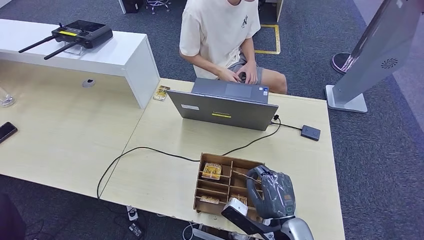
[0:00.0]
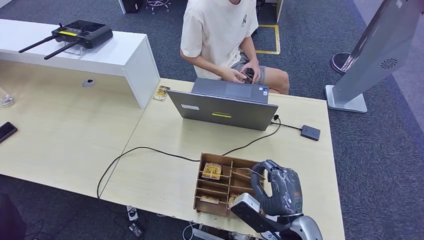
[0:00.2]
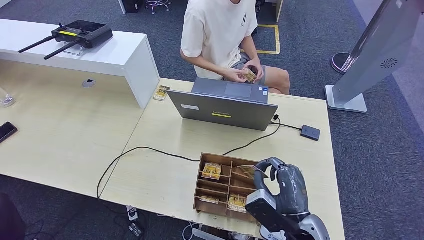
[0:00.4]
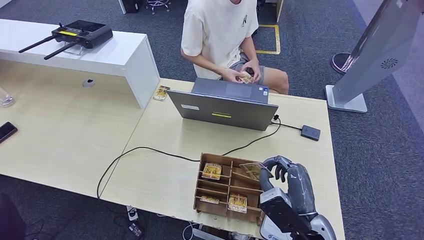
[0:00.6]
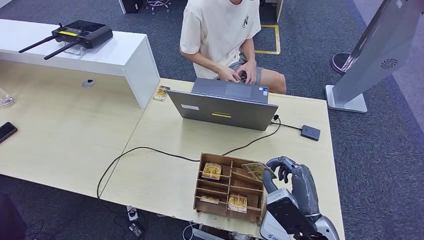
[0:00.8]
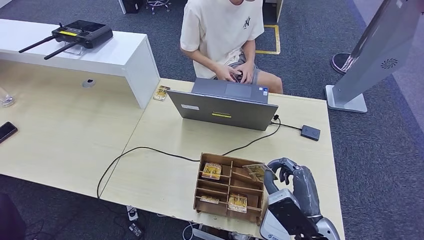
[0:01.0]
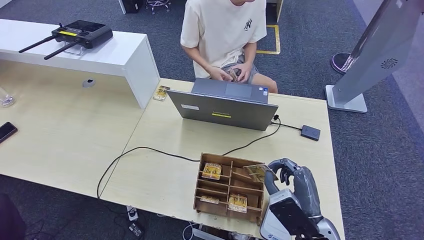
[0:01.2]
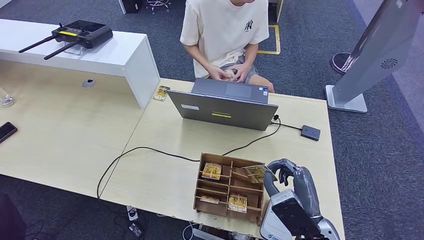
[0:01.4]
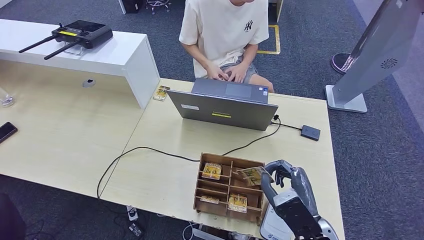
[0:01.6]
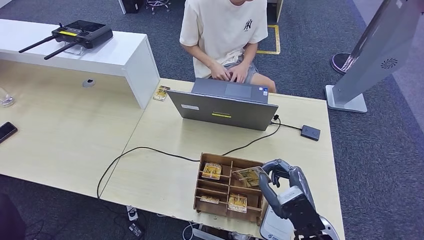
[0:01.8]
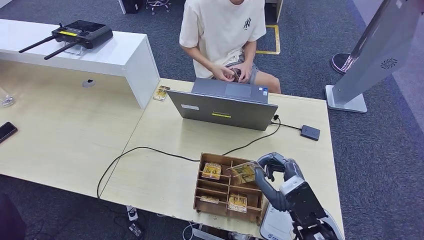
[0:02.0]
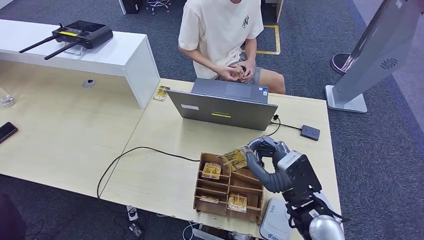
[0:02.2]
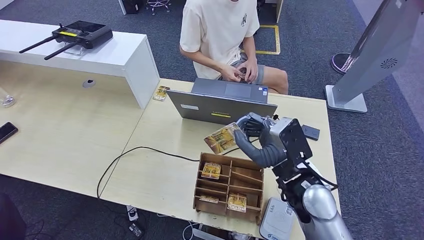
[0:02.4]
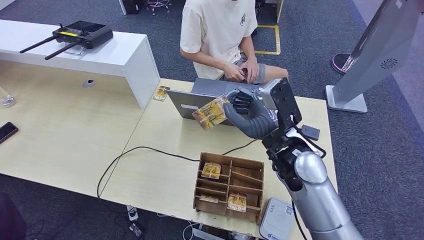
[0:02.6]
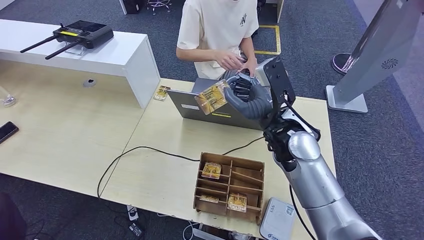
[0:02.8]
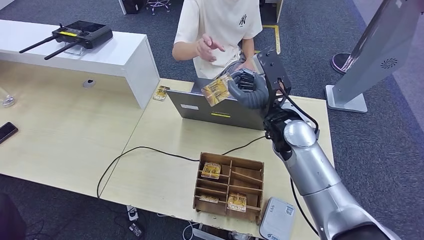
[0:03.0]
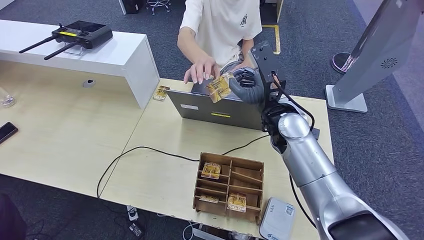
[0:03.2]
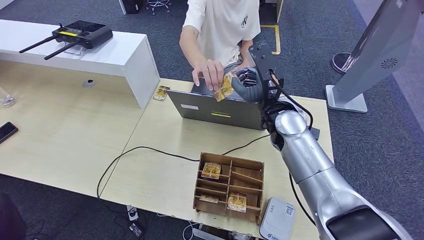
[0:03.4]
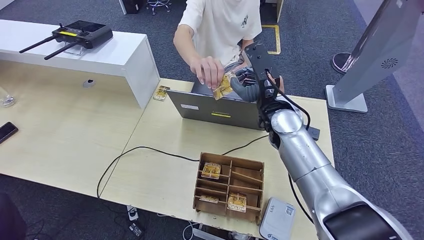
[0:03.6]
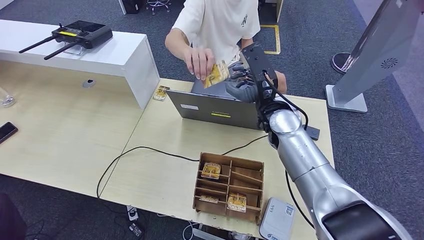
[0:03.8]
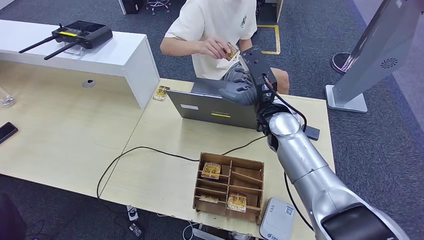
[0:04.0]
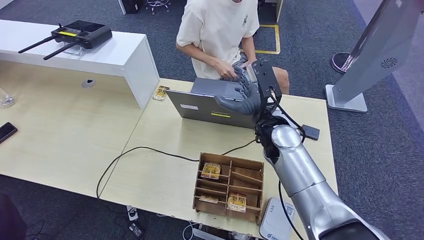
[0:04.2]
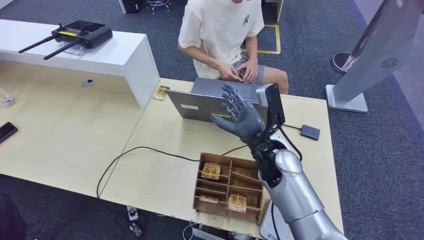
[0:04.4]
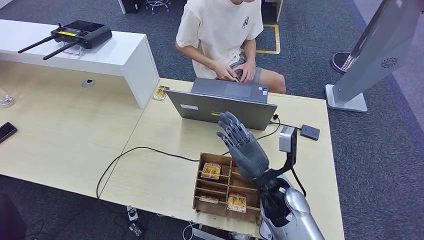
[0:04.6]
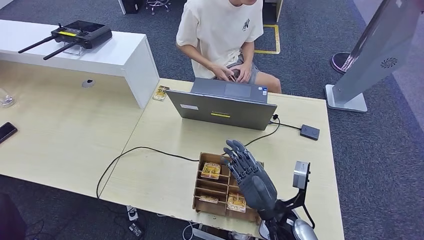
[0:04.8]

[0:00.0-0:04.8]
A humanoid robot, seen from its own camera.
Step, 0:00.0 to 0:01.4: Pick up the room key from the key card box.
Step, 0:01.6 to 0:04.8: Hand the room key to the person.
0:00.0 to 0:01.6: The right hand changes place by roughly 5 cm.
0:01.6 to 0:03.2: The right hand goes roughly 25 cm forward and upward.
0:03.2 to 0:04.8: The right hand moves backward and downward, some 25 cm.

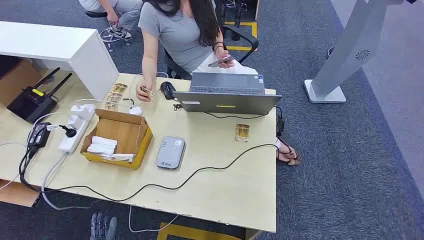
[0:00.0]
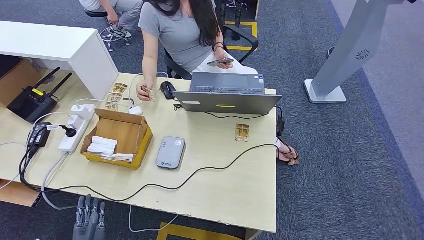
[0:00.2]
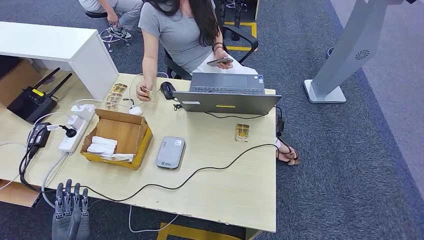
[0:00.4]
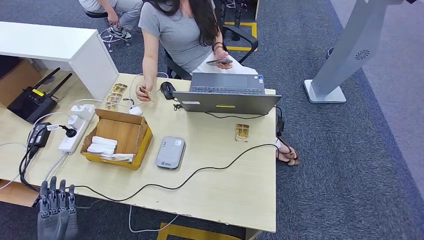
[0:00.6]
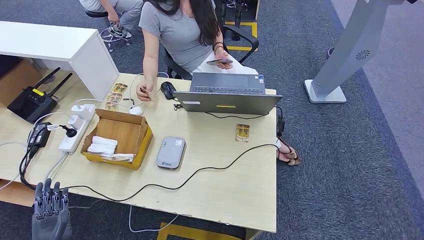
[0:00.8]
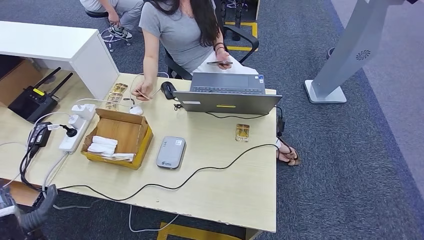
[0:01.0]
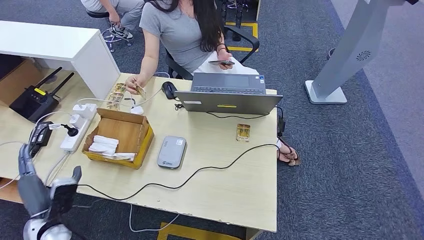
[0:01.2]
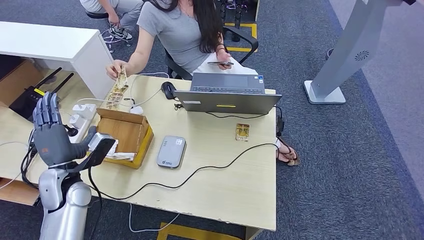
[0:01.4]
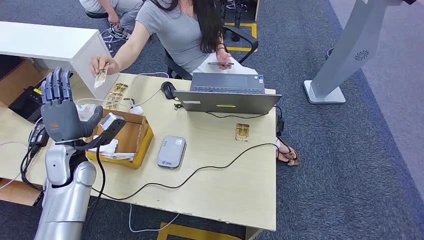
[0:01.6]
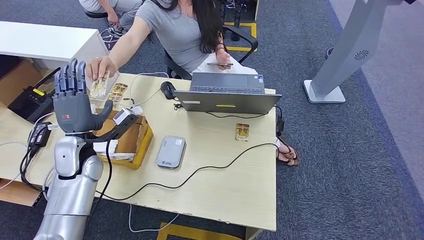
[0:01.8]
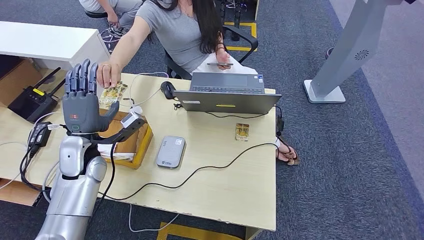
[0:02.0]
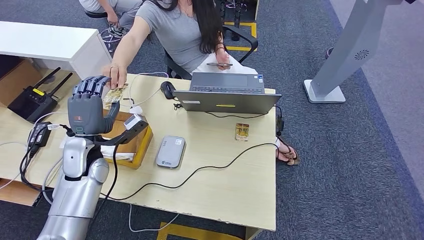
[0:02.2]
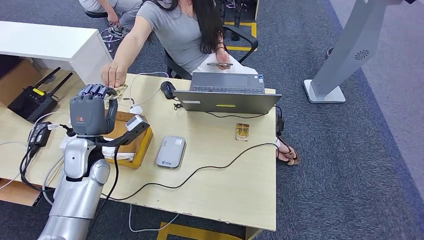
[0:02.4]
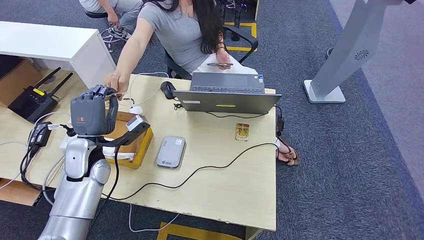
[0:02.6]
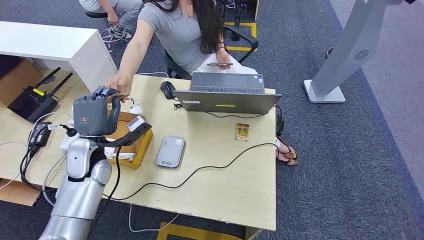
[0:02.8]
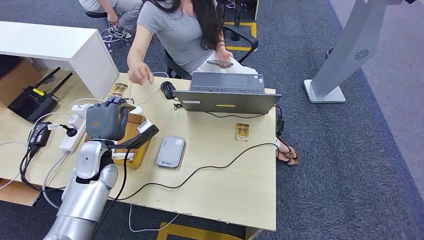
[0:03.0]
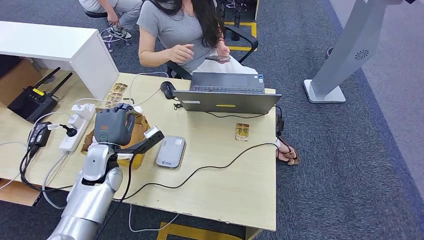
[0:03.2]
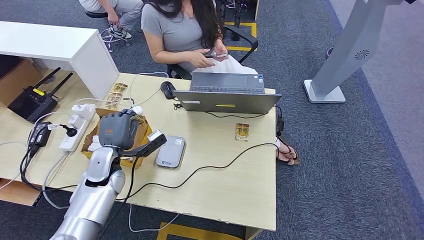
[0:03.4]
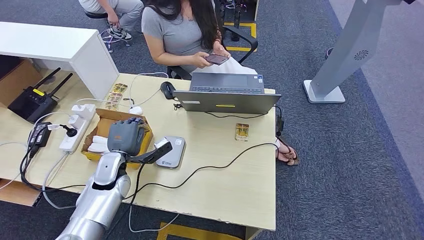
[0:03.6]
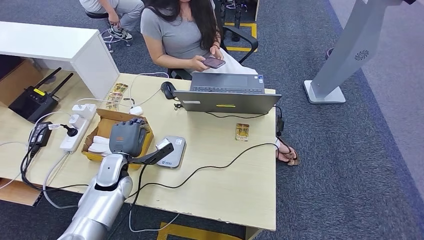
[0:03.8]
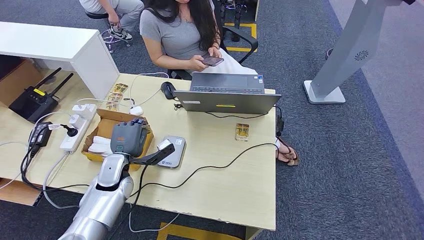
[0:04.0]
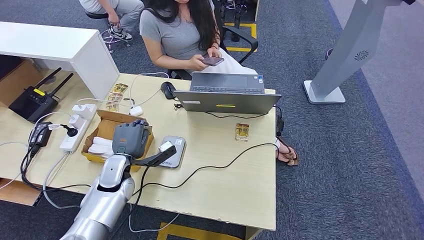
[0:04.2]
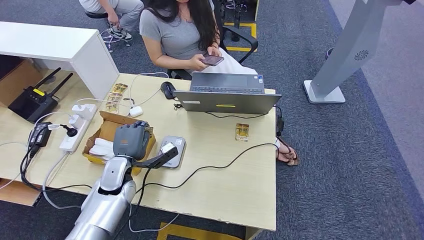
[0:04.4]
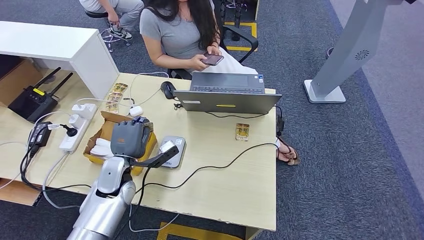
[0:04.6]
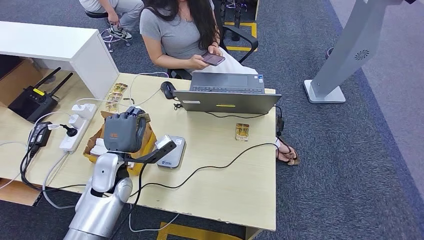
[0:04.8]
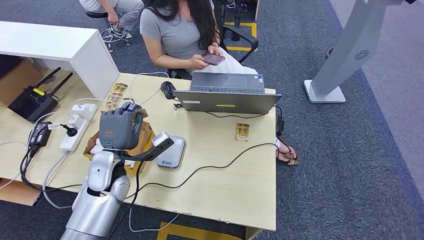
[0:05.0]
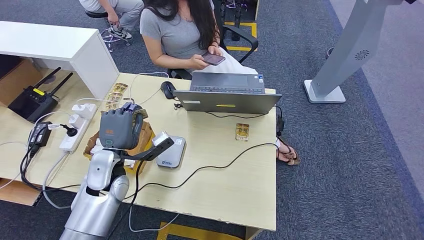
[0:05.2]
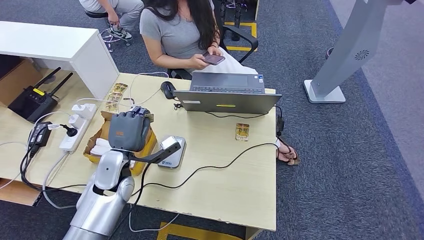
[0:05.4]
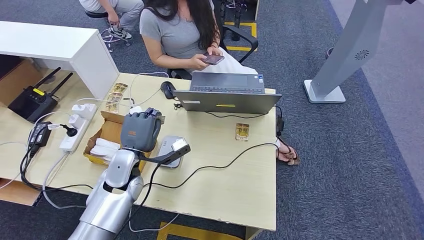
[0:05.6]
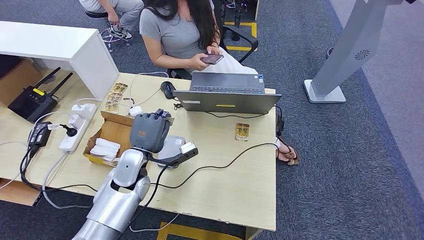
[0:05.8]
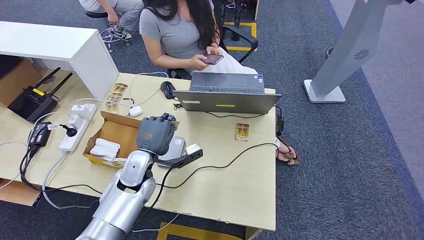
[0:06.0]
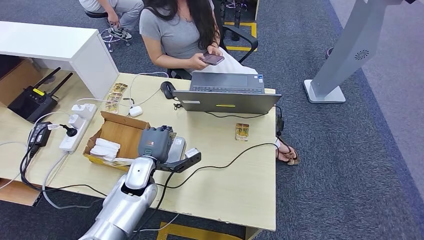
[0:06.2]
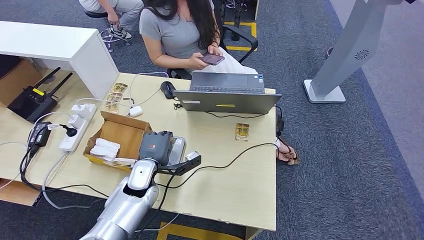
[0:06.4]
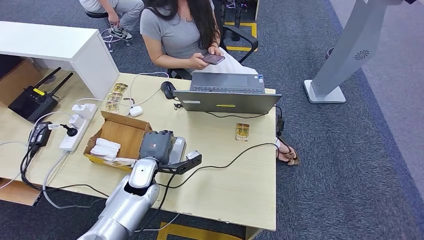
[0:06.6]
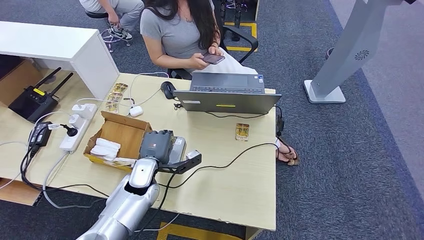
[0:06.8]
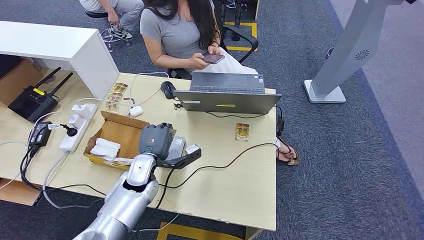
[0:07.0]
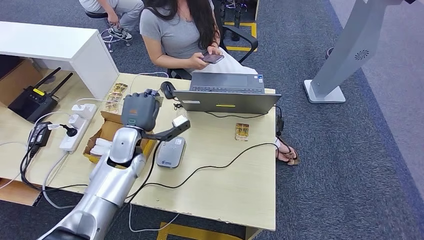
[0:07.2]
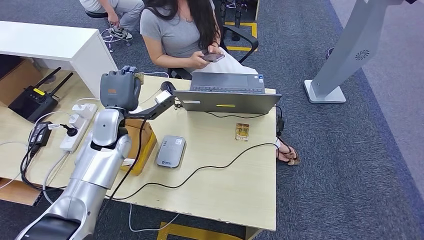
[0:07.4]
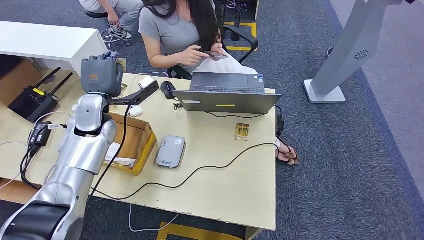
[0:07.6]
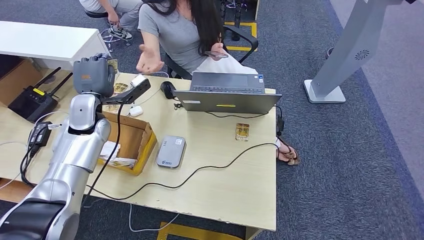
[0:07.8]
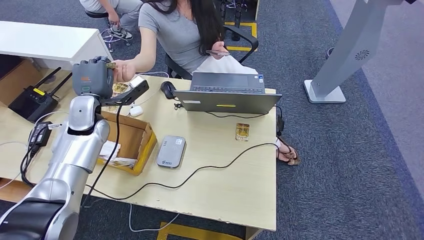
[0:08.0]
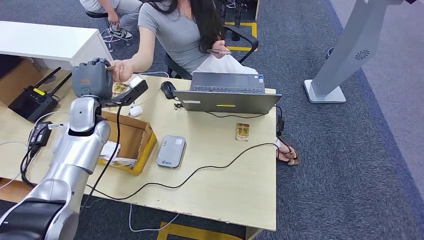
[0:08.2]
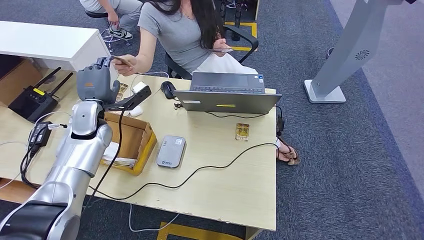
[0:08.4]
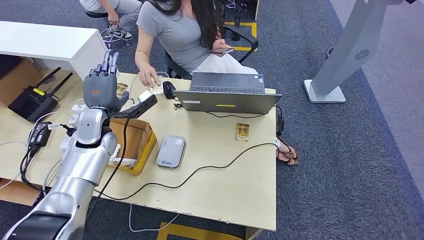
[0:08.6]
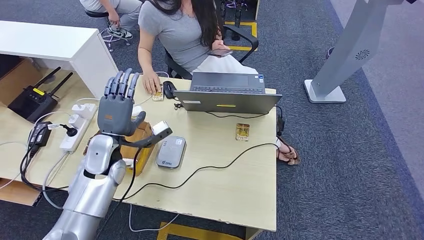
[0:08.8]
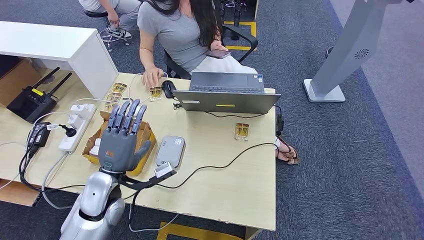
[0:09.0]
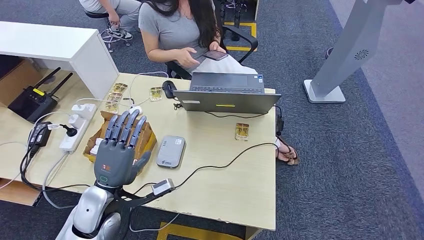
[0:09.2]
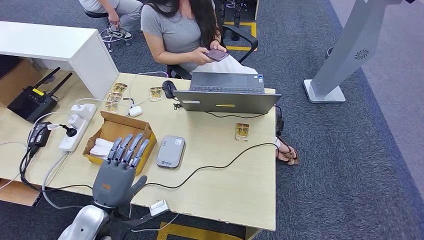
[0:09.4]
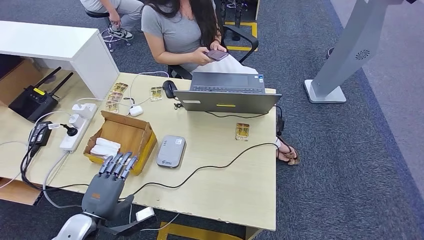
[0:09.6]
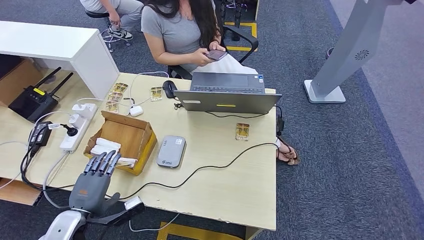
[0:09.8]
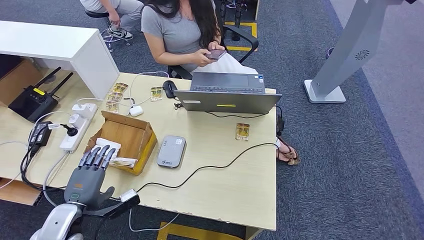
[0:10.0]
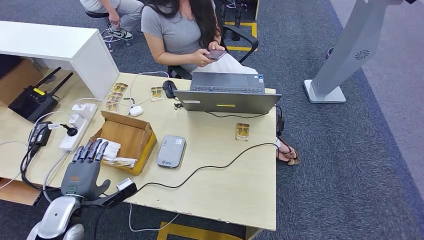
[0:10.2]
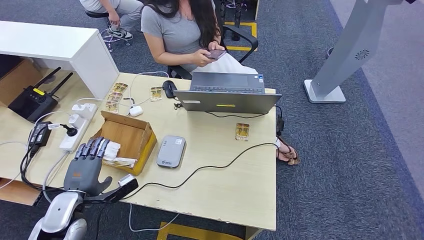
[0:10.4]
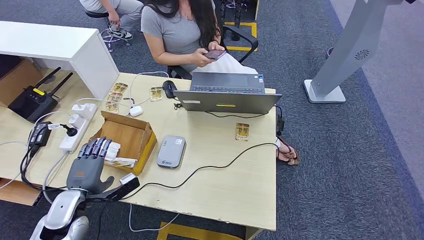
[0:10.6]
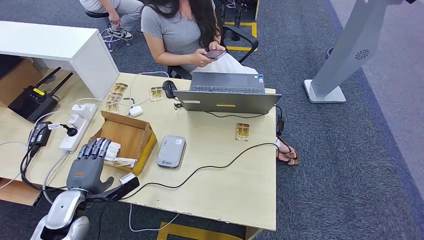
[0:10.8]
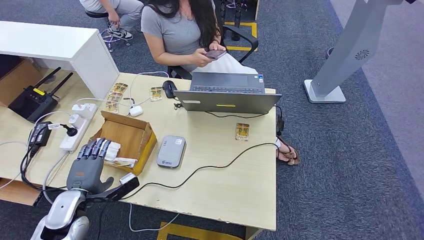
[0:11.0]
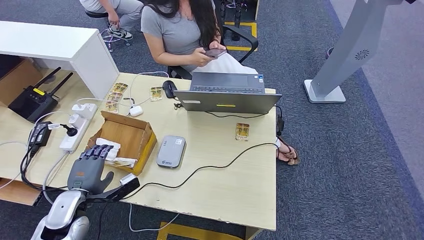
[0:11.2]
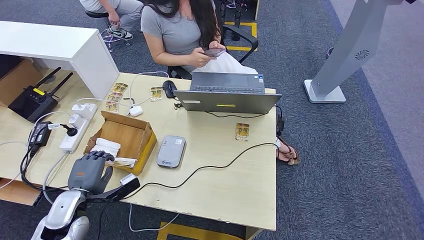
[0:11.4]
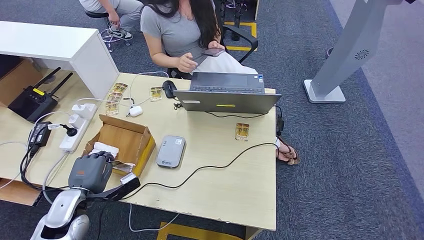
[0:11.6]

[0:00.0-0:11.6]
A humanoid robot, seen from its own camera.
Step, 0:00.0 to 0:03.2: Take the ID card from the person's hand.
Step, 0:03.4 to 0:06.4: Place the ID card on the card reader.
Step, 0:06.6 to 0:08.2: Hand the ID card to the person.
0:01.4 to 0:02.8: The left hand is displaced forward and to the right by about 10 cm.
0:02.8 to 0:04.4: The left hand moves downward and to the right, approximately 10 cm.
0:04.4 to 0:05.8: The left hand travels to the right by approximately 5 cm.
0:05.8 to 0:07.2: The left hand reaches approximately 5 cm downward, then returns.
0:07.2 to 0:08.8: The left hand moves to the left, about 5 cm.
0:08.8 to 0:10.2: The left hand goes some 20 cm backward, to the left and downward.
0:10.2 to 0:11.6: There are only small adjustments of the hands.
